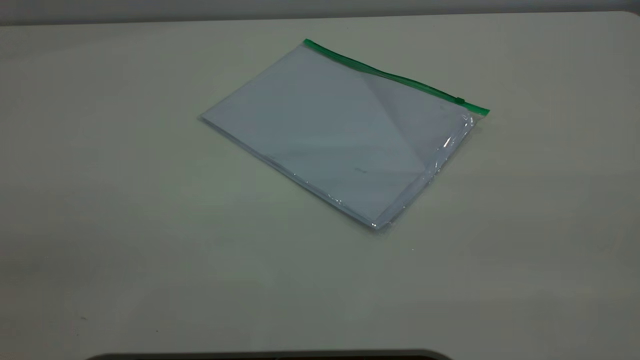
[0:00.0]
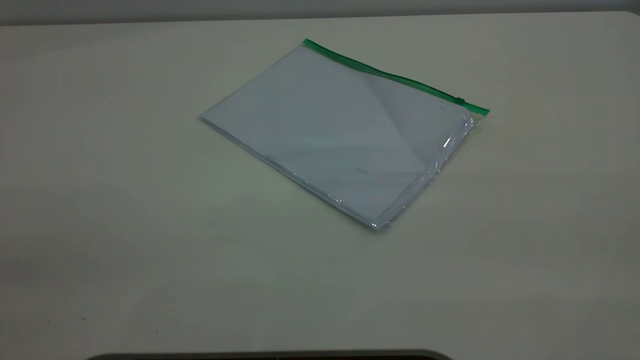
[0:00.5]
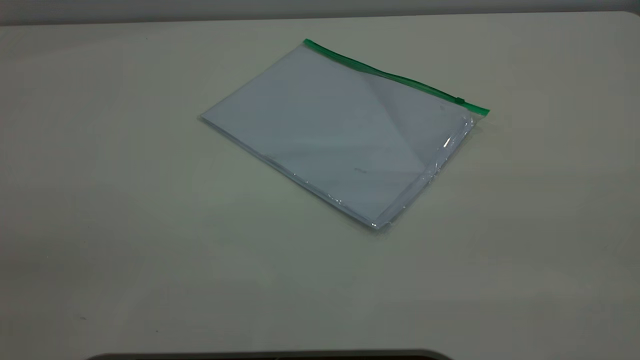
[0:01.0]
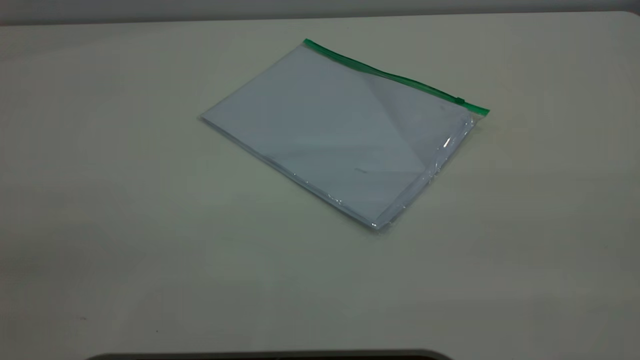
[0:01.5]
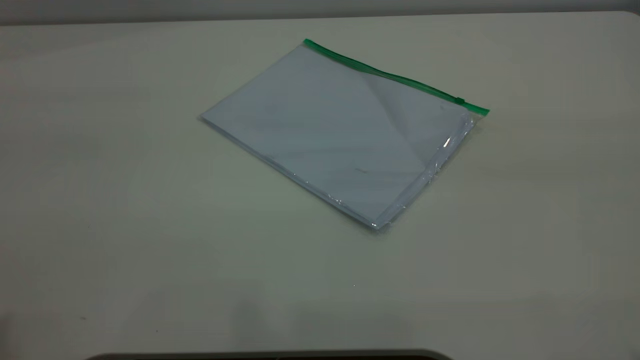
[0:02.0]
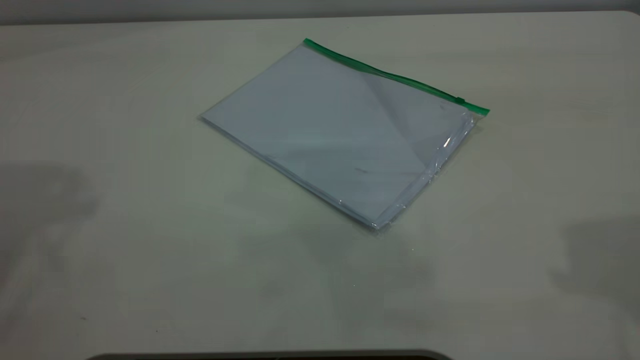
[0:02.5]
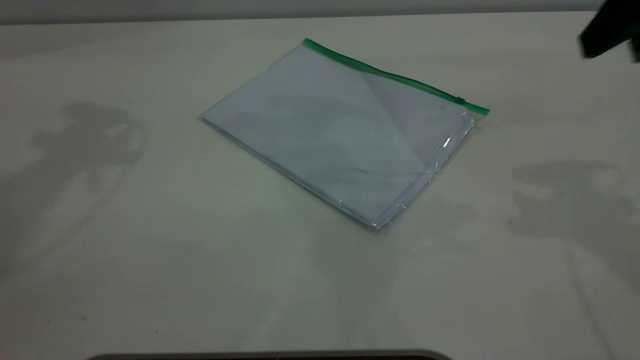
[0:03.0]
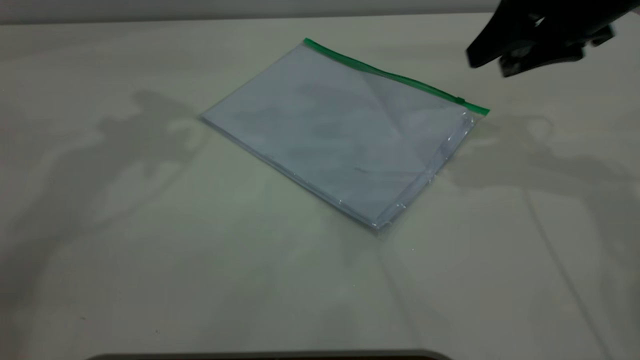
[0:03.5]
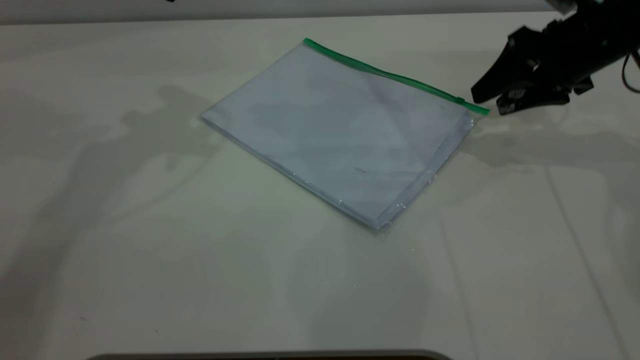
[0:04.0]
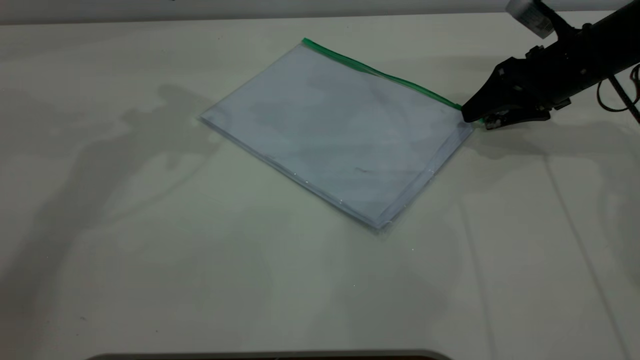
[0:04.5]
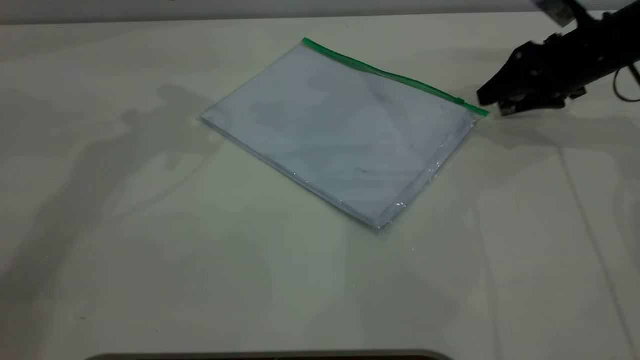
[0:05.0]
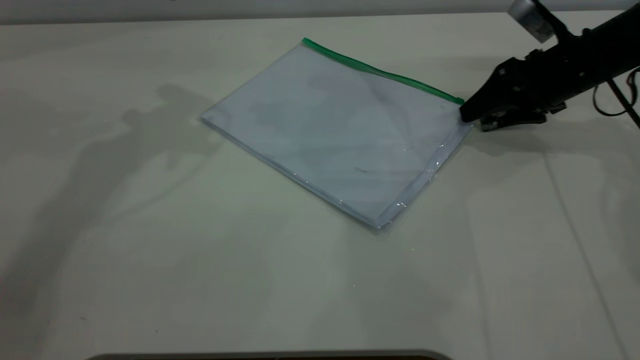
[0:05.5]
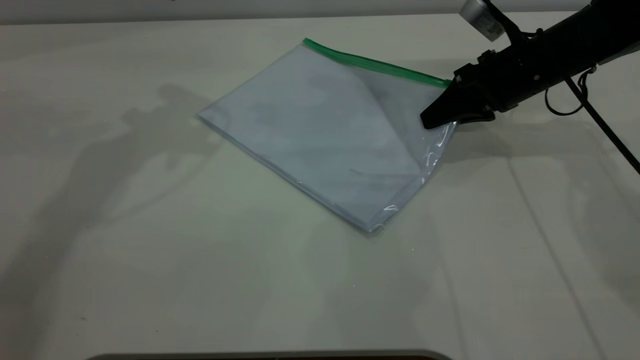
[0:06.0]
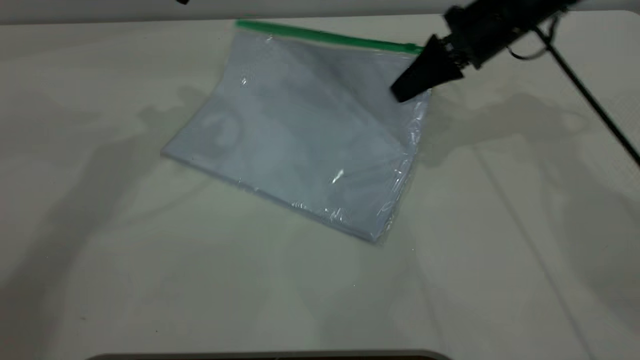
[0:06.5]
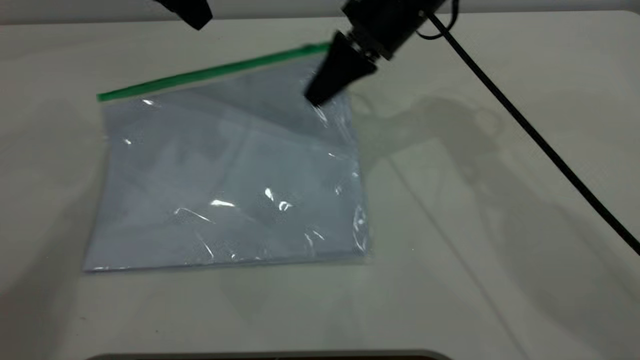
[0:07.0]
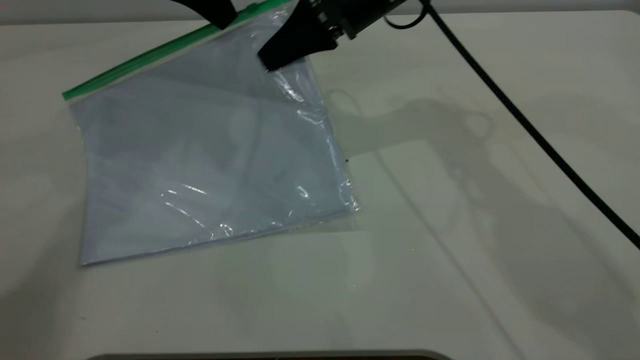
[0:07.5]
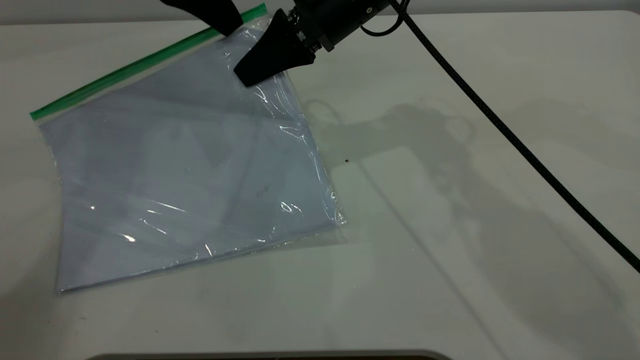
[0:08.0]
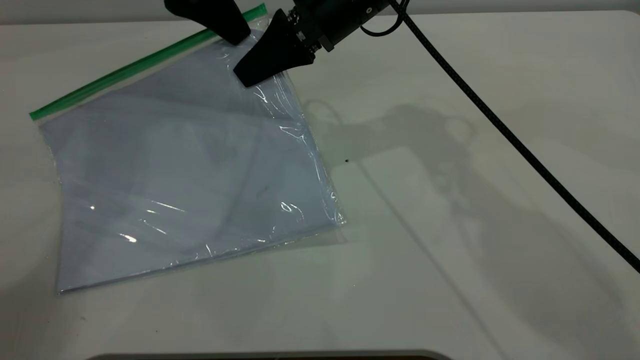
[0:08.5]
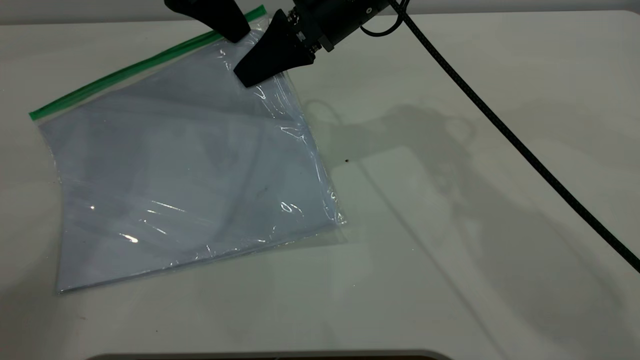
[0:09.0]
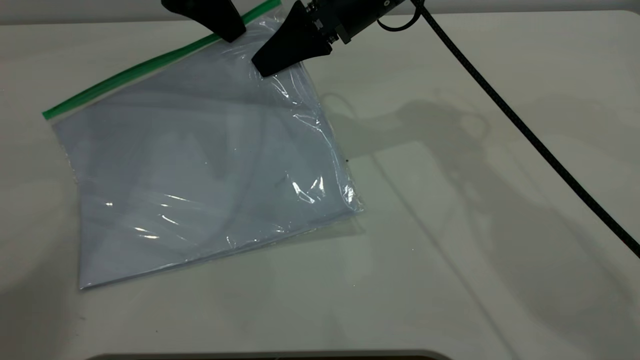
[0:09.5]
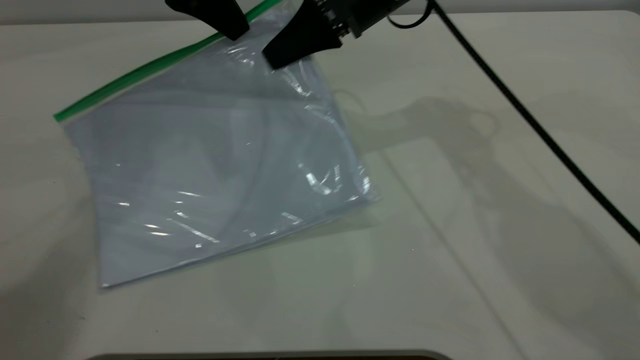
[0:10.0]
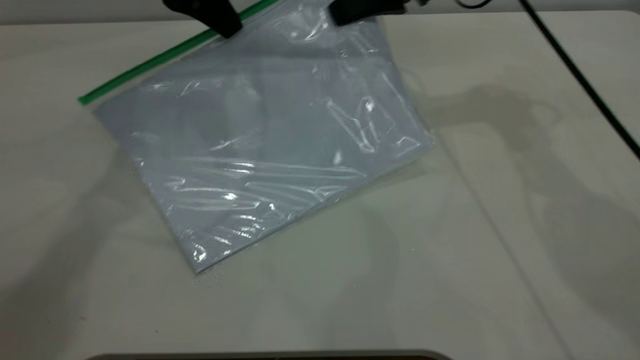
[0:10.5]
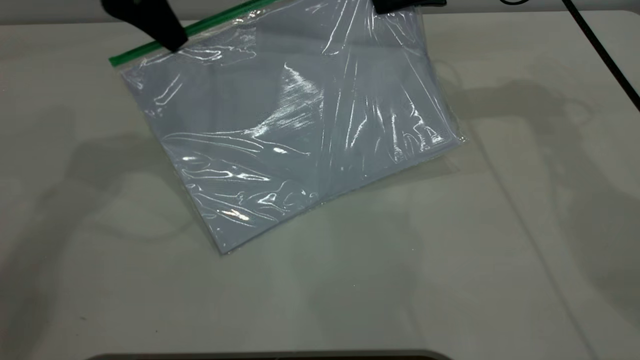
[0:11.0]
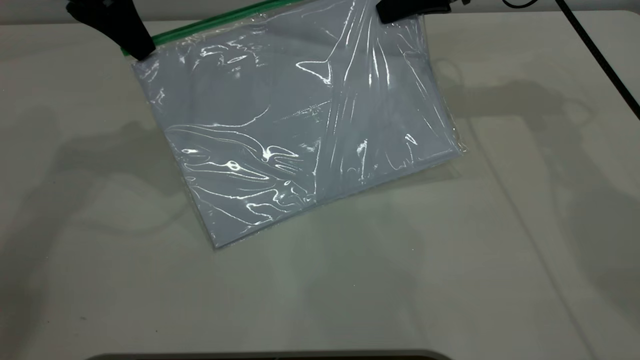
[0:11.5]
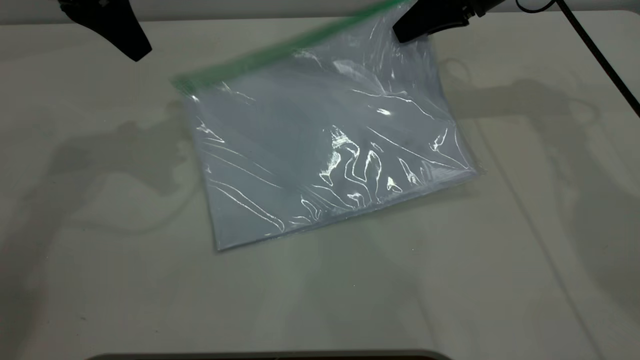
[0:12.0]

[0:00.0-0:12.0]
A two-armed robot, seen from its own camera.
Step, 0:00.0 to 0:06.0: Pick up the transparent plastic bag with the right gripper.
Step, 0:06.5 to 0:11.5: Pulling up the zipper on the transparent plastic bag with the left gripper to close it.
0:02.0 to 0:04.0: The right gripper heads forward and downward, covering approximately 50 cm.
0:04.0 to 0:06.0: The right gripper is displaced to the left by approximately 5 cm, and closes.
0:06.0 to 0:08.0: The left gripper moves to the right, approximately 5 cm. Meanwhile the right gripper goes roughly 20 cm to the left and upward.
0:08.0 to 0:10.0: The left gripper closes.
0:10.0 to 0:12.0: The right gripper is displaced to the right by approximately 15 cm, and opens its fingers. Meanwhile the left gripper shifts about 10 cm to the left, and opens its fingers.
